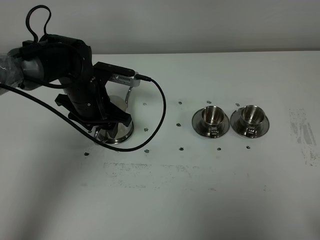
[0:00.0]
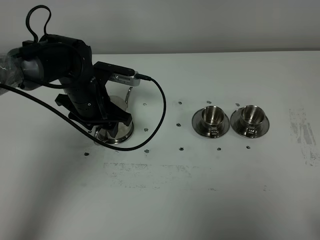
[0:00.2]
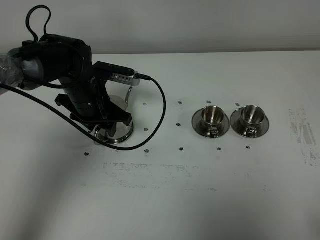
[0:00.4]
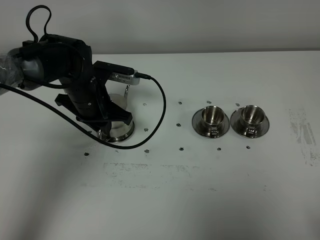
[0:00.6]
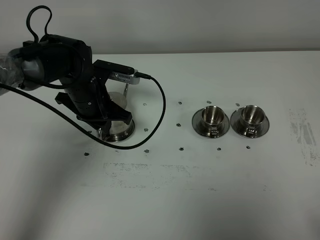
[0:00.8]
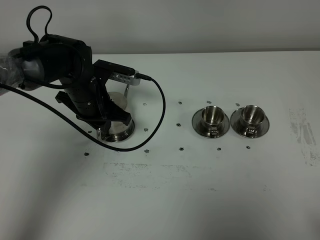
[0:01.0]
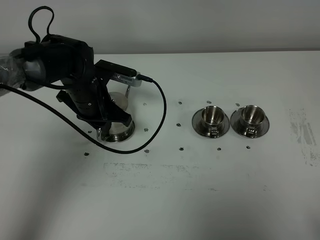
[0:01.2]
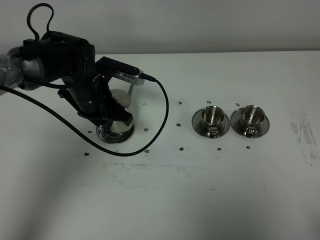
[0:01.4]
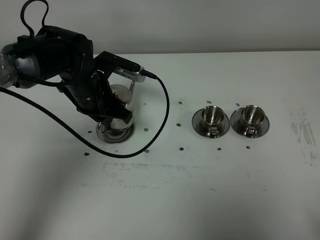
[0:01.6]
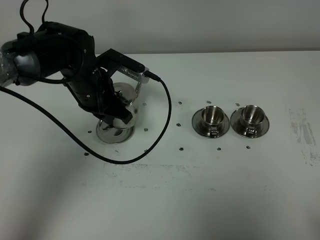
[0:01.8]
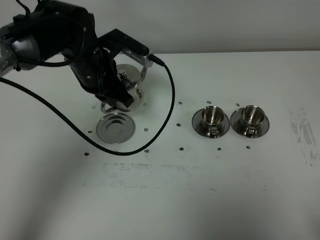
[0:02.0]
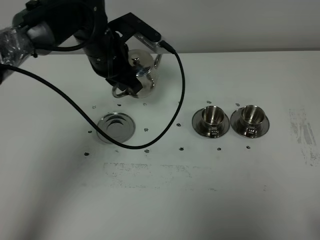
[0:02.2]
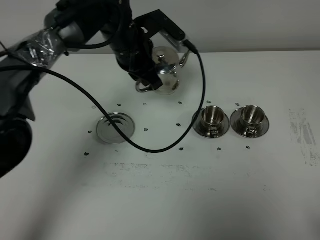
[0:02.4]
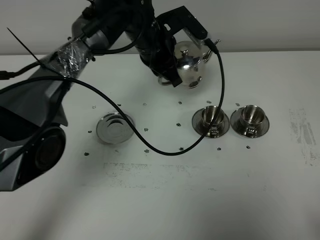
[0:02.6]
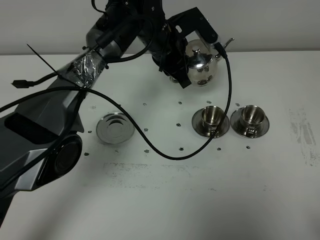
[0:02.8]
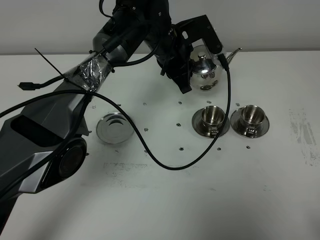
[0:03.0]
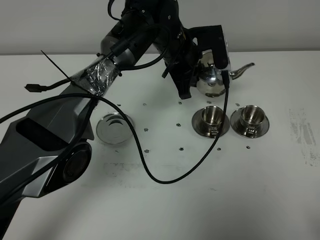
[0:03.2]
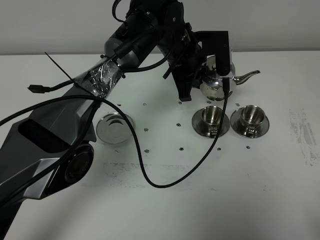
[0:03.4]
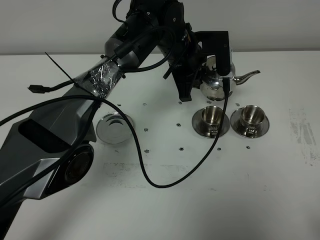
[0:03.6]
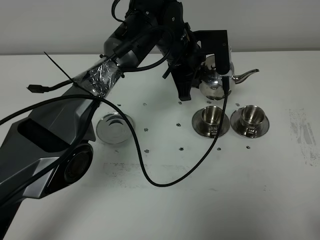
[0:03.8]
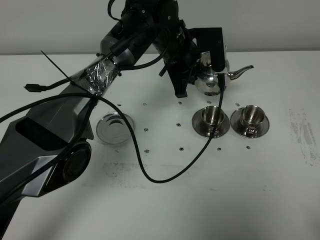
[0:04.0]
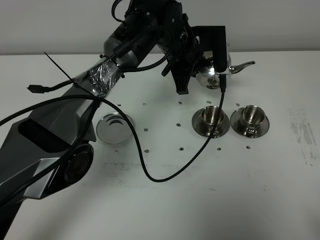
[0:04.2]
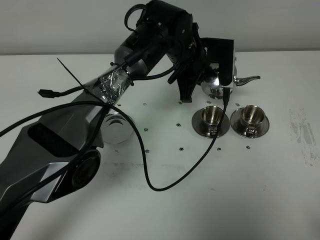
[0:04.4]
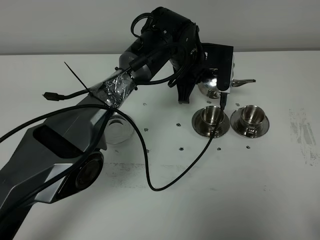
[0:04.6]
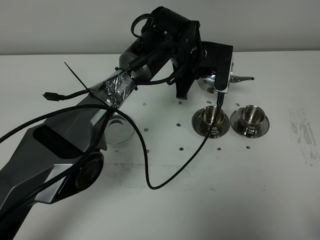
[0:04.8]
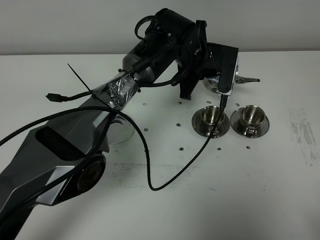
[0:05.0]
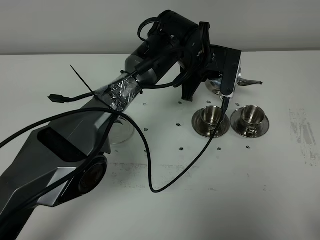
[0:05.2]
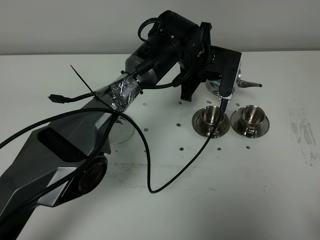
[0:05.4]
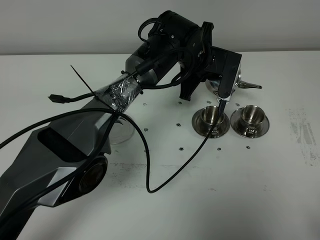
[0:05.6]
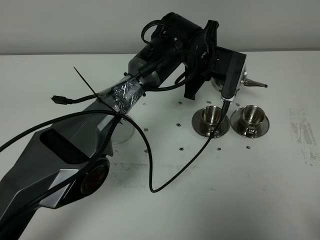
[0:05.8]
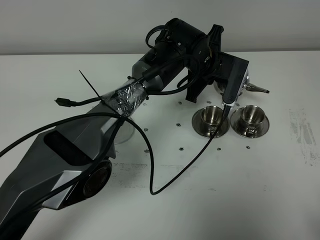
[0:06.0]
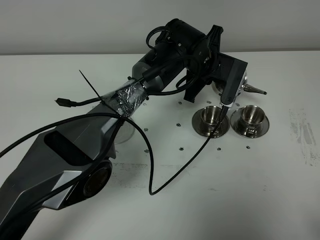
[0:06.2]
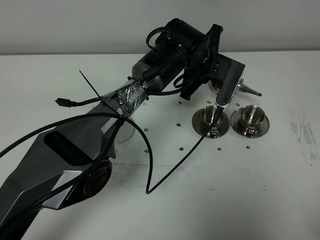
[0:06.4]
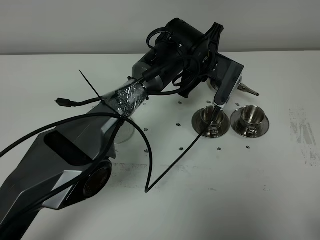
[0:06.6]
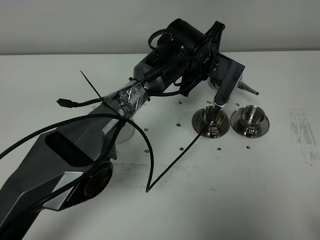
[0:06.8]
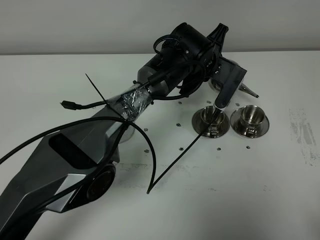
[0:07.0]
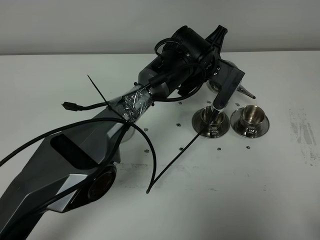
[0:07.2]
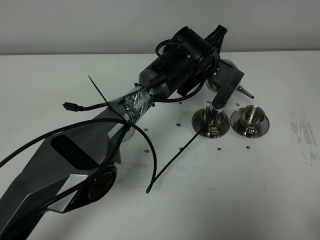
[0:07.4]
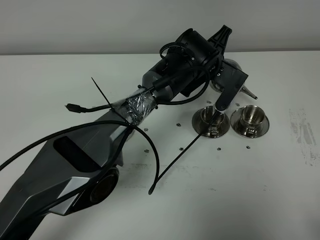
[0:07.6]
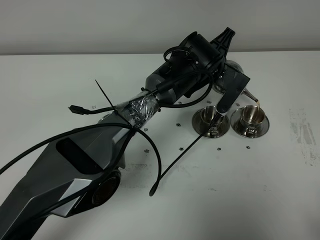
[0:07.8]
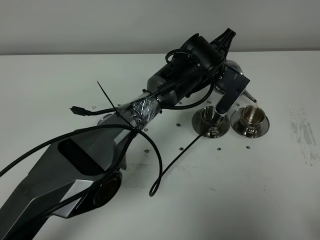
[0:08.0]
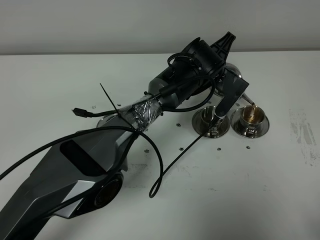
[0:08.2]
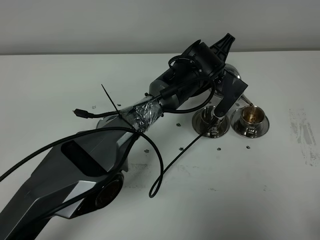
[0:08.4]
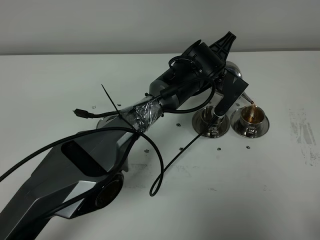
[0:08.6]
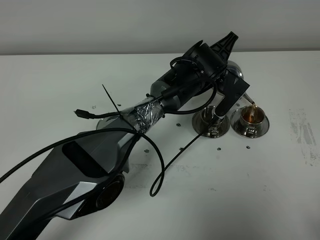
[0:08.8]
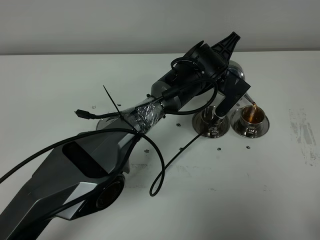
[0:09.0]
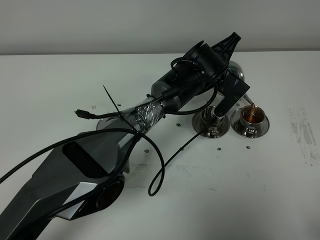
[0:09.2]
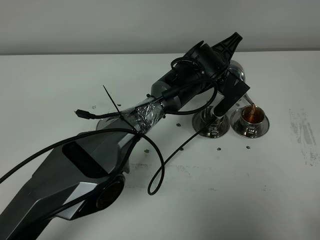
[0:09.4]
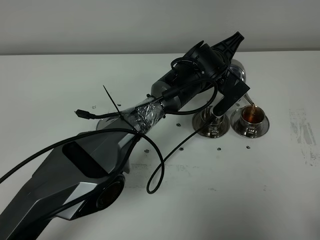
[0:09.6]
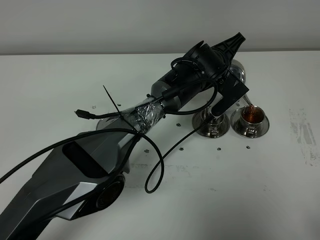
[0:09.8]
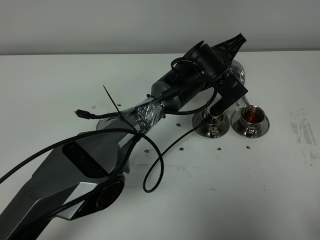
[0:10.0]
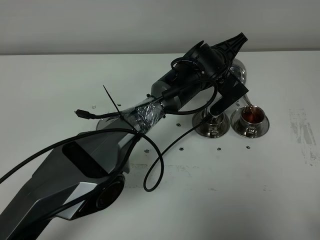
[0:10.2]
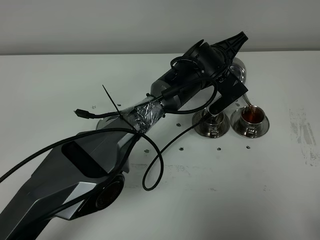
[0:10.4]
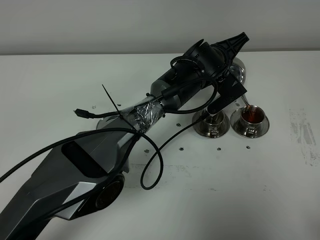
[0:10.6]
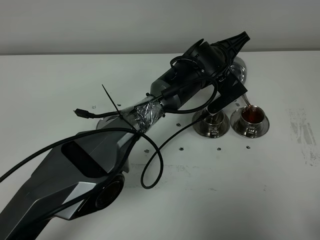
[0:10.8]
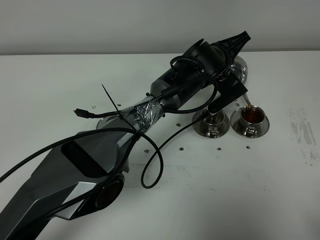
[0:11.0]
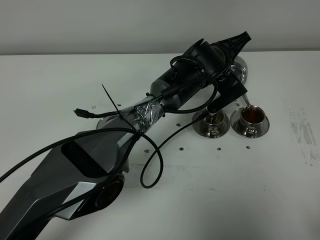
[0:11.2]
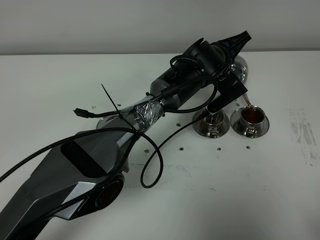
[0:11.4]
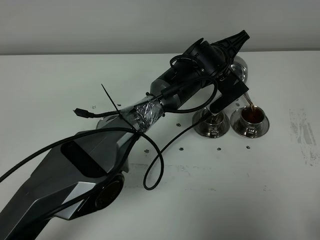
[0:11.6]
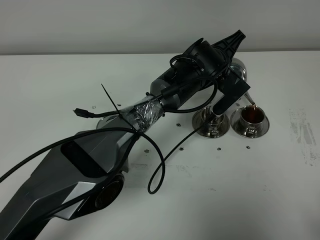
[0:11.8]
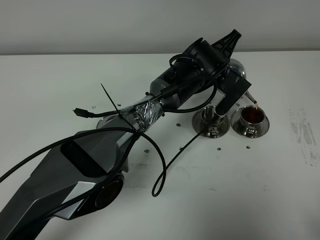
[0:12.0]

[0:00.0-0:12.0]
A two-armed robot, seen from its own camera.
Task of the whole recording: grasp the stainless steel teapot and pour the tea into the two stainless steel teacups one by one, put the stainless steel teapot back in its original place.
0:00.0 to 0:01.6: The left gripper closes up.
0:01.6 to 0:03.0: The left gripper goes about 15 cm to the right and forward.
0:06.0 to 0:07.6: The grippers move only a little.
0:07.6 to 0:09.0: The grippers move only a little.
0:09.0 to 0:12.0: The grippers stay close to where they were, moving slightly.

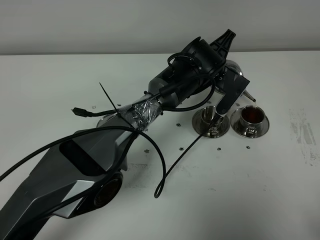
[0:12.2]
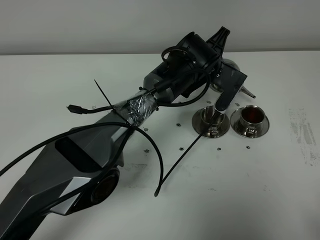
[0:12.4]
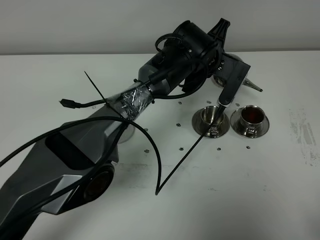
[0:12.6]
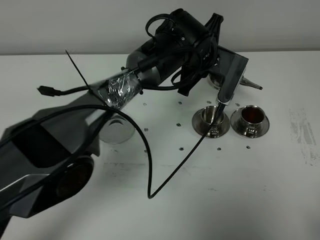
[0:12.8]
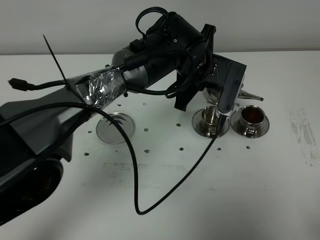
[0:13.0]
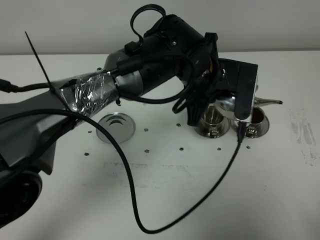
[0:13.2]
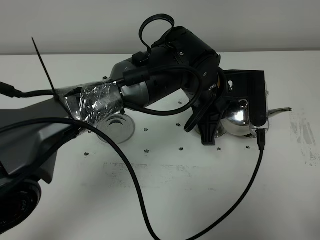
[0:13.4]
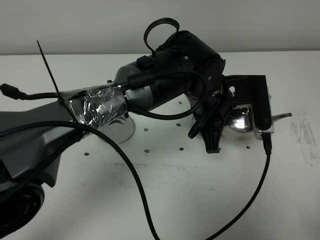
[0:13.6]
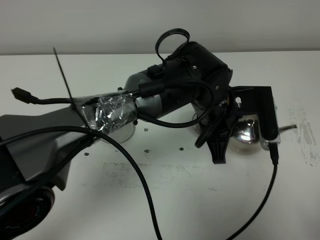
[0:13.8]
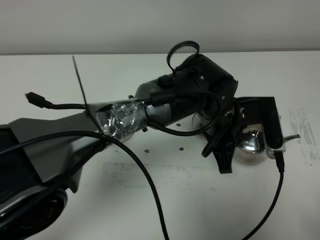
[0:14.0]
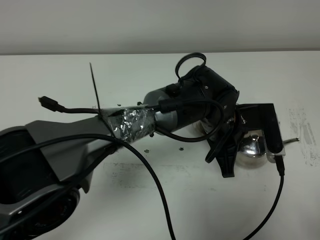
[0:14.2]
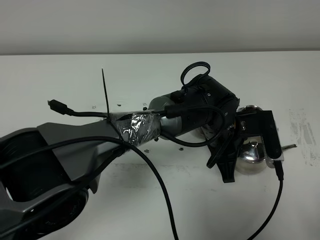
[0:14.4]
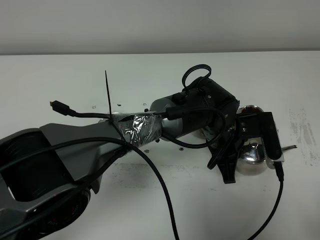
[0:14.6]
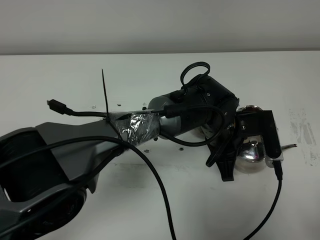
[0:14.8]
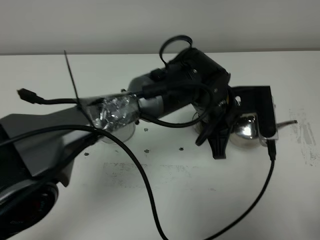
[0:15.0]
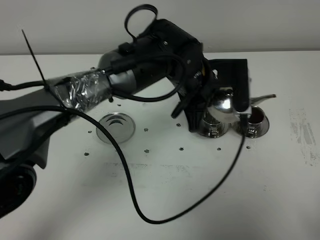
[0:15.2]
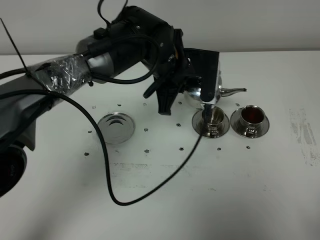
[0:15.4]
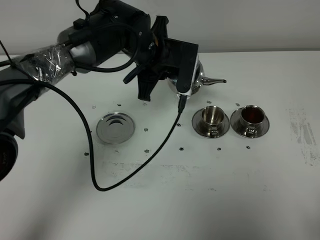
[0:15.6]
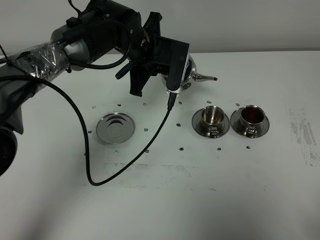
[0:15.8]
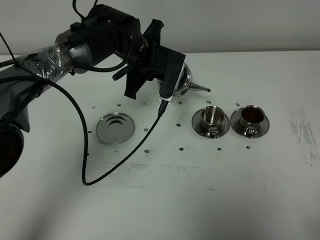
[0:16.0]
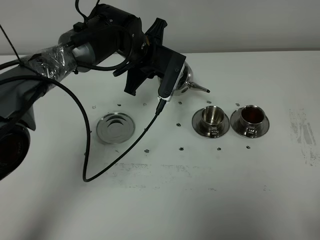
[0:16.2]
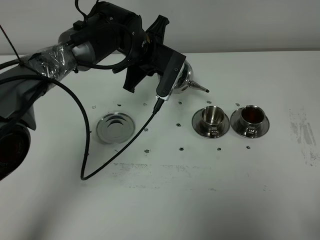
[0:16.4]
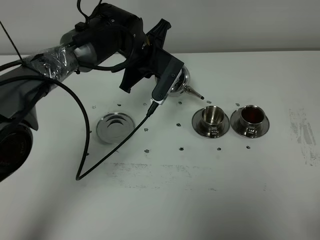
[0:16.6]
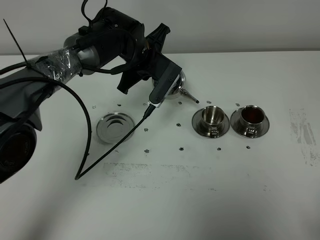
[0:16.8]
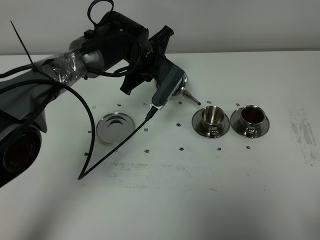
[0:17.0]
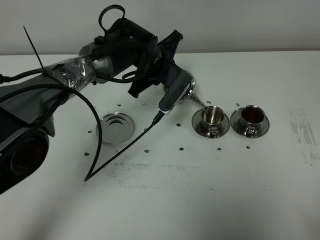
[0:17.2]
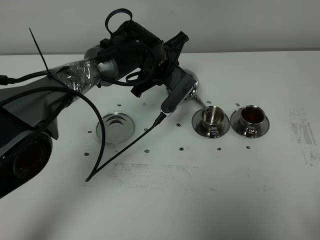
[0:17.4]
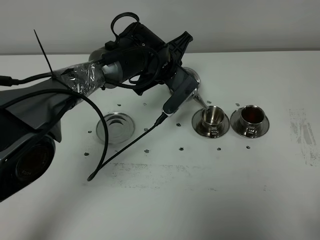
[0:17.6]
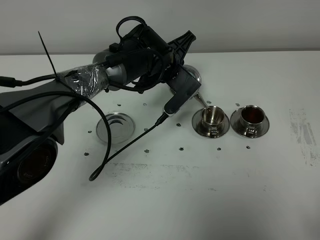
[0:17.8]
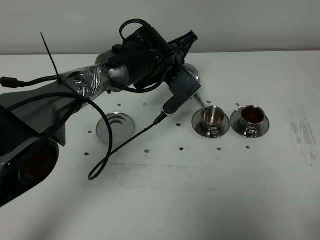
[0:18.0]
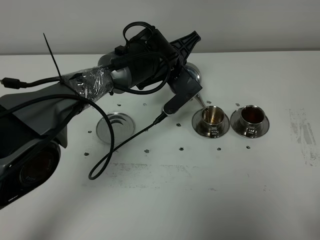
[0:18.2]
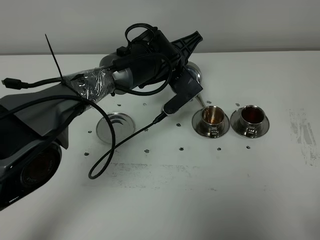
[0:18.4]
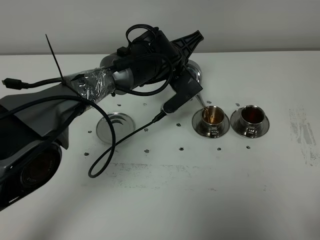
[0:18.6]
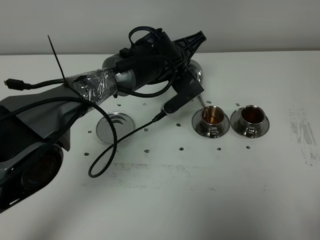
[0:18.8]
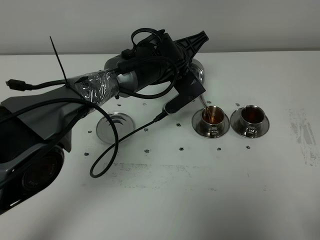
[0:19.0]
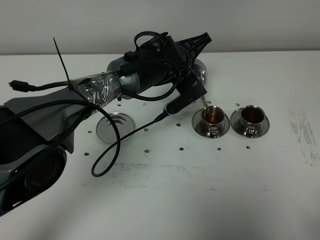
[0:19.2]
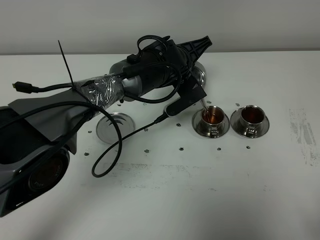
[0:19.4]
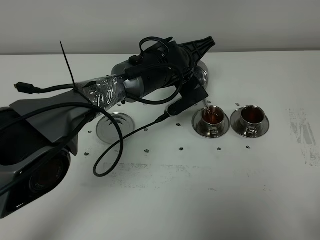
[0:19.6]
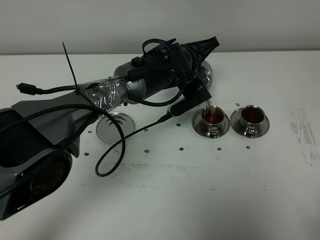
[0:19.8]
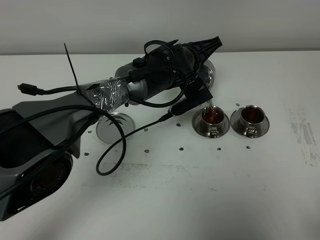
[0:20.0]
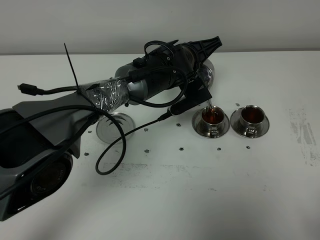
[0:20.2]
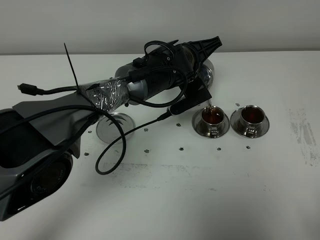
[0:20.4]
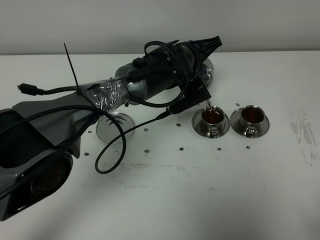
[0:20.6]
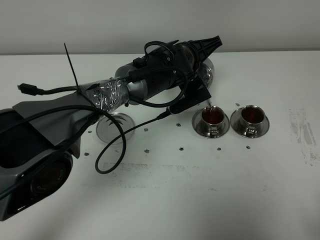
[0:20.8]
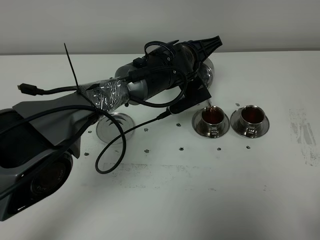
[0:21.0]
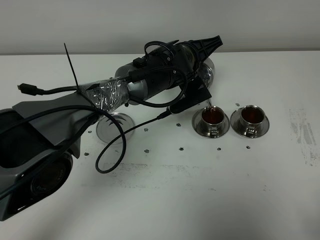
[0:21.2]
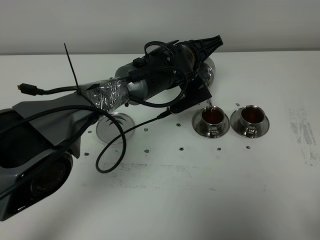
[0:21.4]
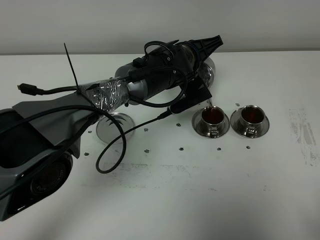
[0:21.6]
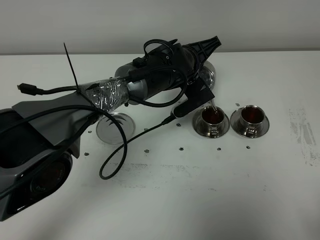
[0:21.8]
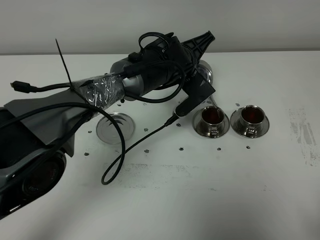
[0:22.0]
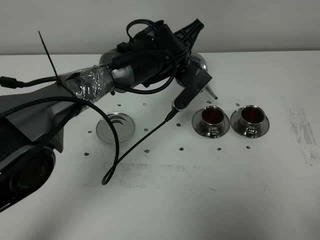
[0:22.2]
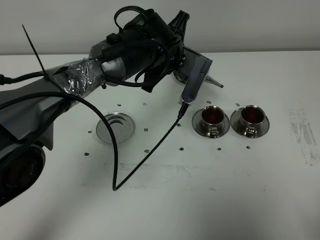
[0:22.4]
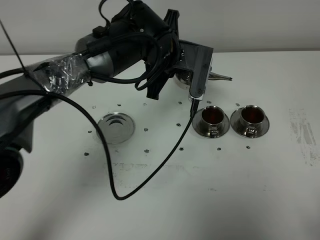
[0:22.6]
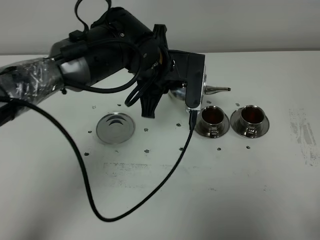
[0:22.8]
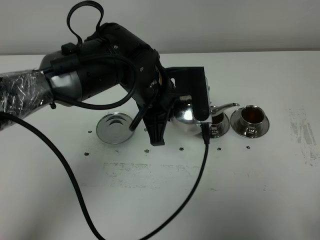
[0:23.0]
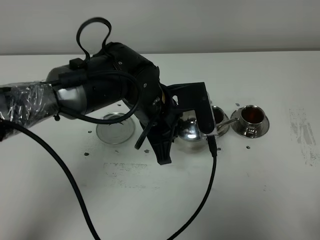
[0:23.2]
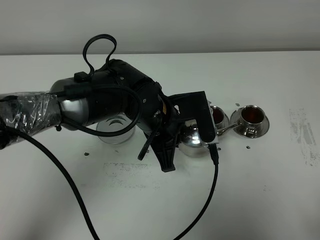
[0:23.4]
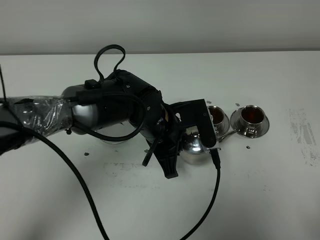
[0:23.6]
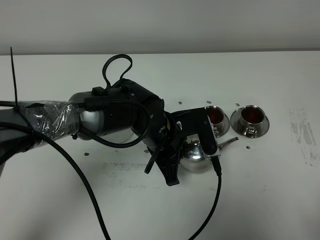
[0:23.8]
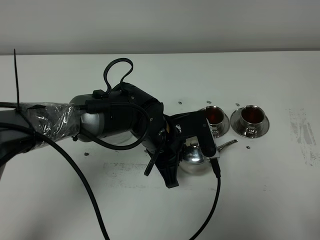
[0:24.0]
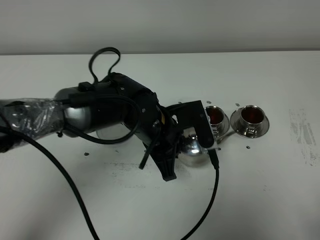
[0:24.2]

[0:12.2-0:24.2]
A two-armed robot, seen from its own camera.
Task of the whole recording: grasp the stainless steel teapot and pour the tea into the two stainless steel teacups one by one, put the stainless steel teapot back in its original place.
Step, 0:12.2 to 0:22.2: Pour tea into the teacup with the left gripper.
0:12.2 to 0:13.8: The left gripper travels backward by roughly 15 cm.
0:13.8 to 0:15.2: The left gripper is displaced forward by about 5 cm, and goes downward and returns, roughly 5 cm each way.
0:15.2 to 0:16.6: The left gripper heads forward and to the left, covering about 15 cm.
0:16.6 to 0:18.2: The left gripper is displaced to the right by about 5 cm.
0:18.2 to 0:19.8: The grippers stay close to where they were, moving slightly.
0:19.8 to 0:21.2: Neither gripper changes place.
0:21.2 to 0:22.6: The left gripper heads upward, covering approximately 5 cm.
0:22.6 to 0:24.2: The left gripper moves backward and downward, roughly 10 cm.
